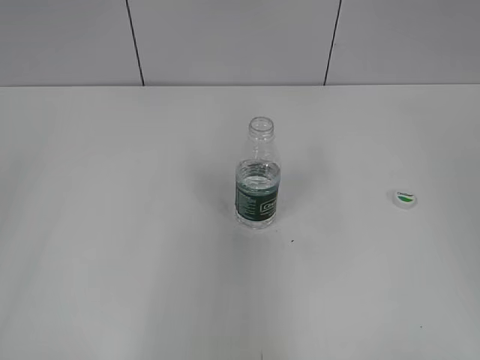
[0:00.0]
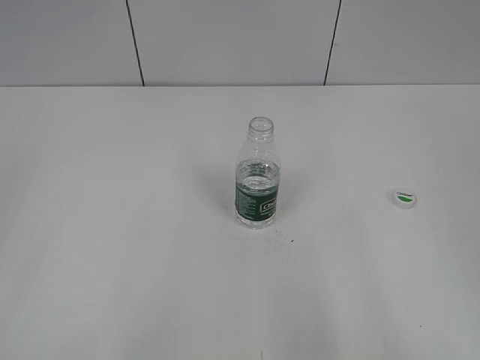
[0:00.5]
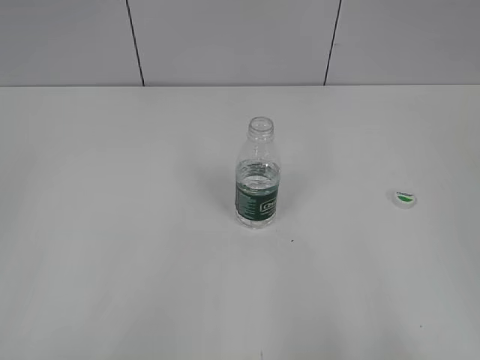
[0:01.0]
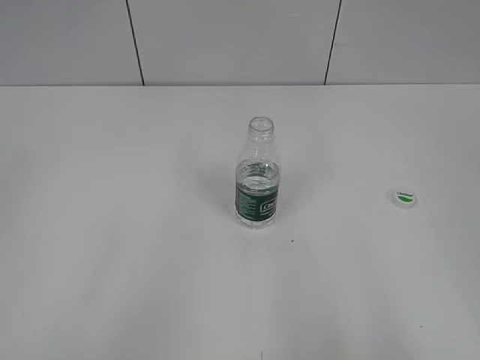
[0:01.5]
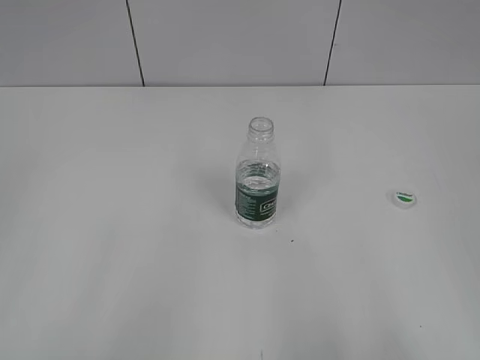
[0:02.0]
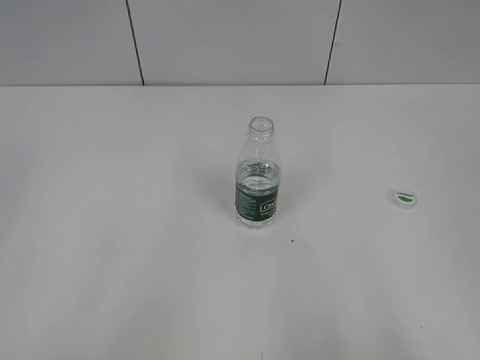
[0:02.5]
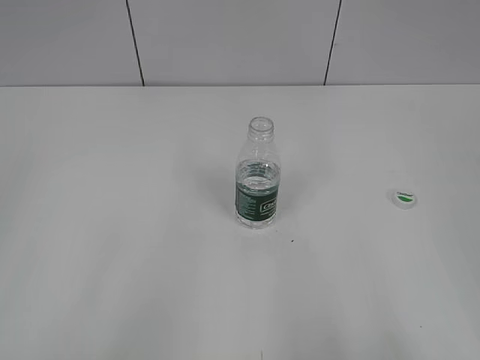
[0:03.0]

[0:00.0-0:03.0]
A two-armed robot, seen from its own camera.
0:00.0 to 0:01.5: The right gripper heads backward and downward, covering roughly 15 cm, while the left gripper changes place by approximately 5 cm.
0:01.5 to 0:03.0: Both grippers stay put.

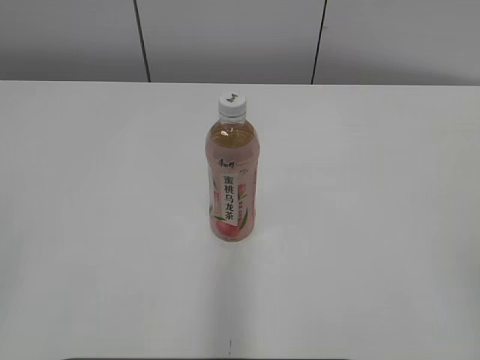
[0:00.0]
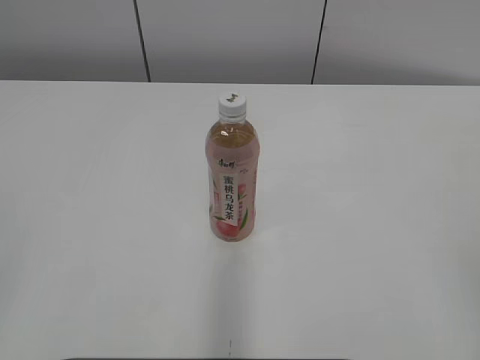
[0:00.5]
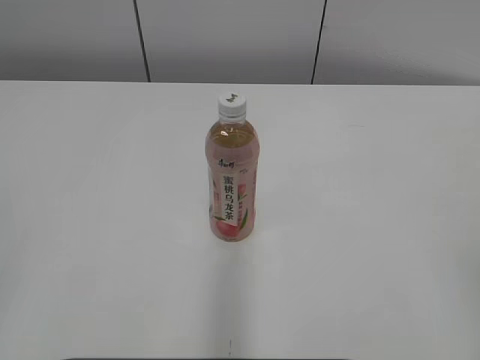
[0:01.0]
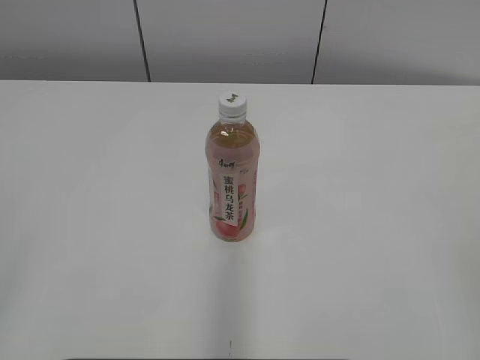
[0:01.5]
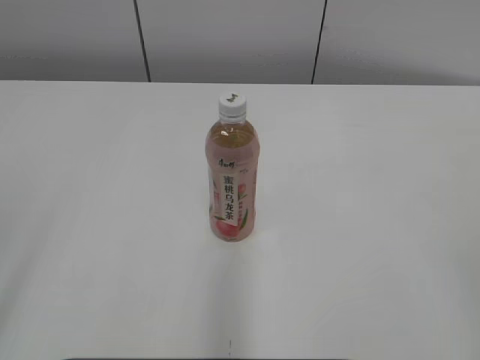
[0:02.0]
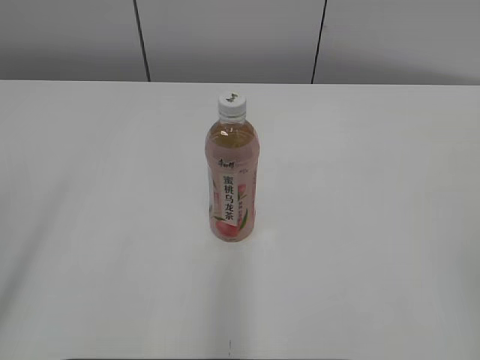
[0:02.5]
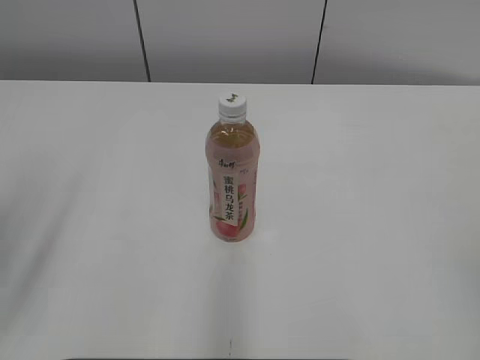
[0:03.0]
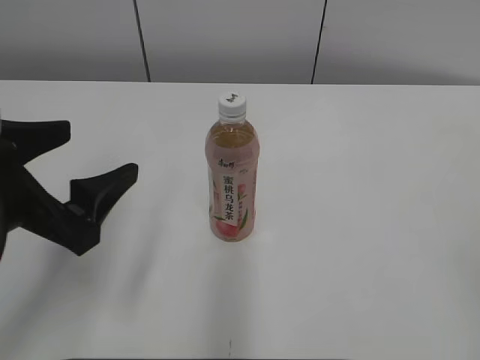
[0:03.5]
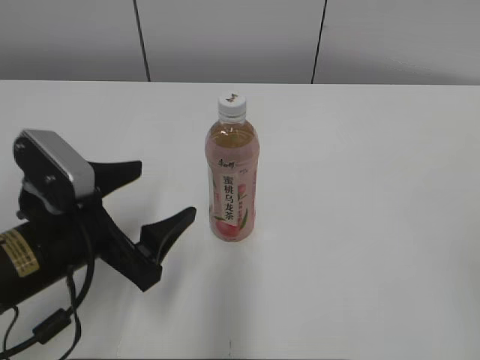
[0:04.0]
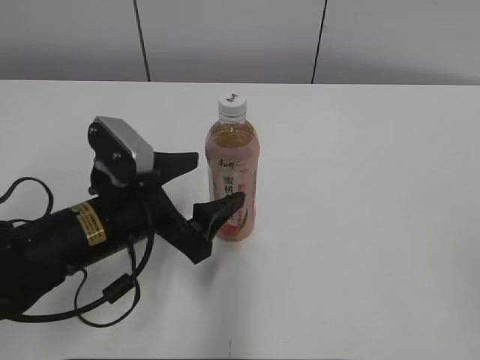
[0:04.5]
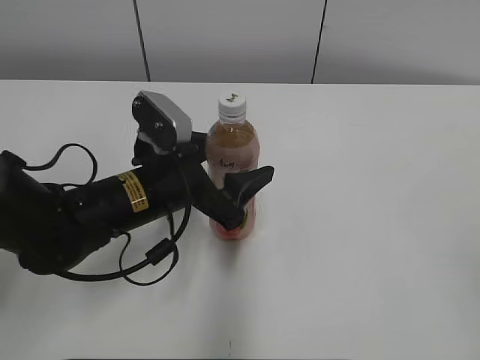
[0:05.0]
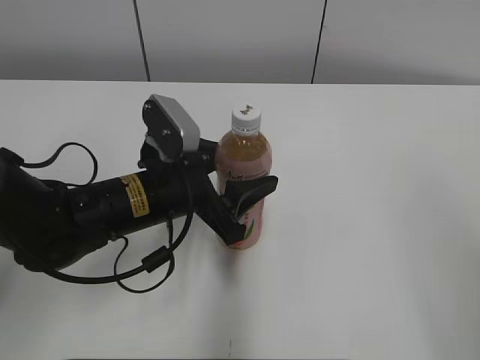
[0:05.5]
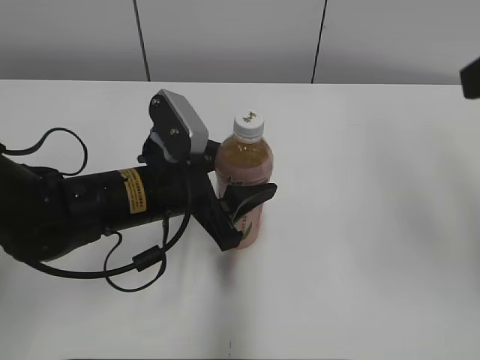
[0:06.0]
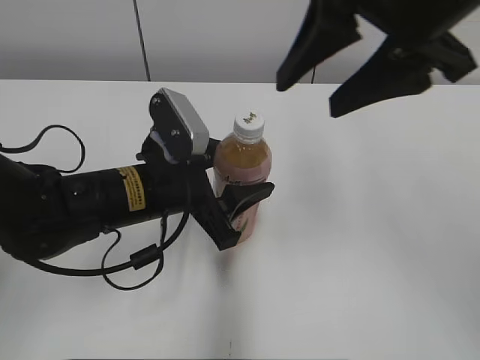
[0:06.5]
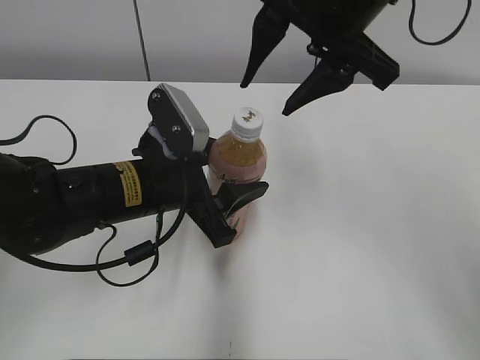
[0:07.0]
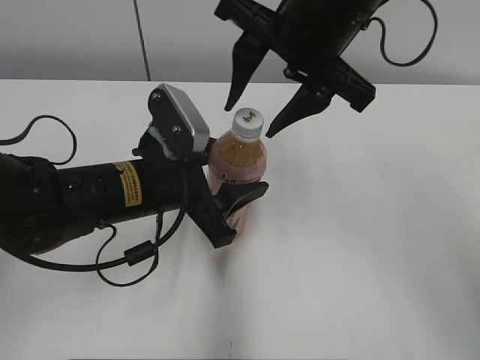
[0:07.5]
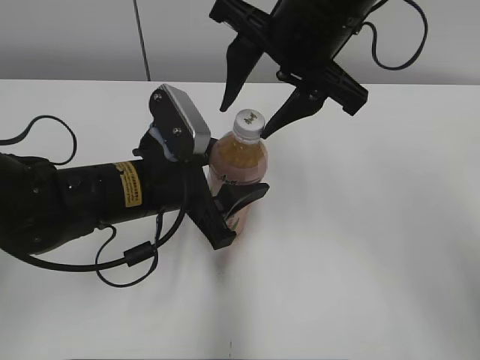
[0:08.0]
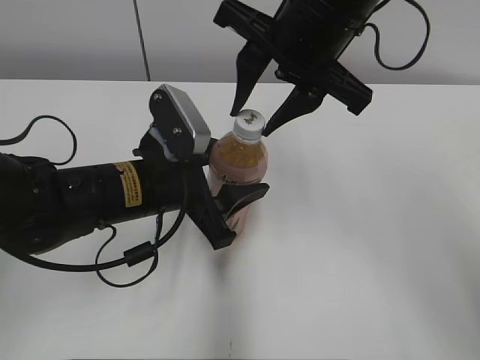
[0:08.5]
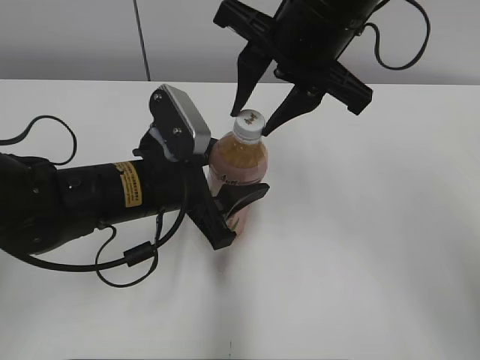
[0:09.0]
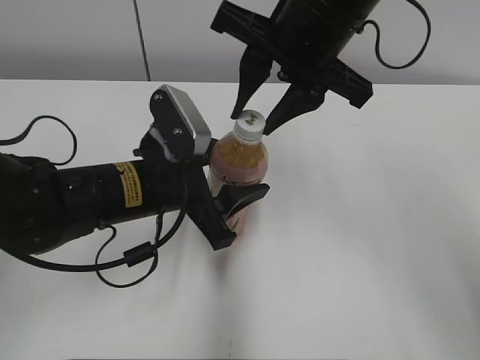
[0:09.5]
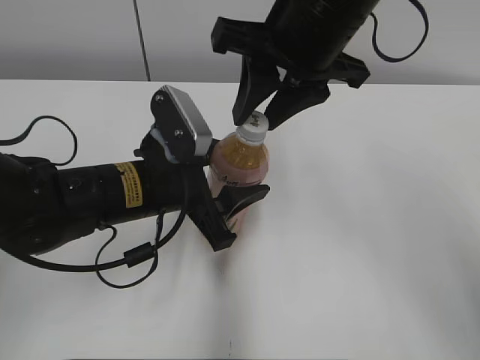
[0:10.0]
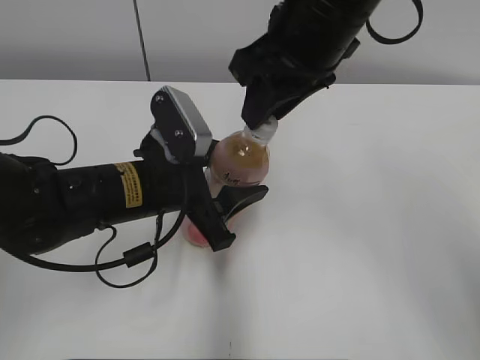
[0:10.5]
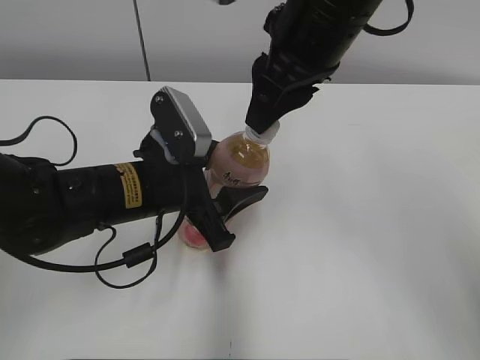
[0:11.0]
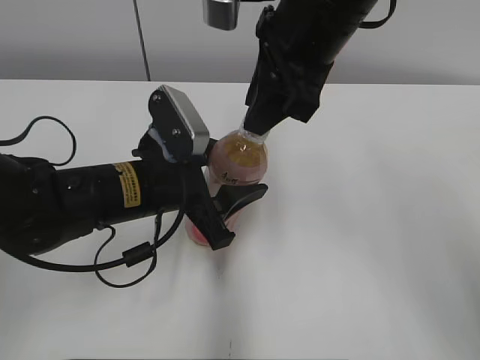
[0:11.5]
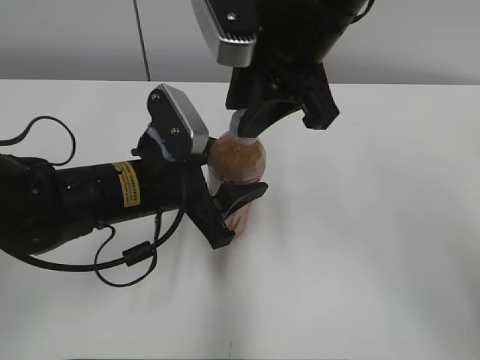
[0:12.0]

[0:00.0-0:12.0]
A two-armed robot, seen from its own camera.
Step, 0:00.0 to 0:05.0: Grab the Peach Oolong Tea with the left hand.
0:02.0 to 0:04.0: The left gripper heads forward, downward and to the right, covering approximately 30 cm.
0:04.0 to 0:06.0: The left gripper heads to the right and forward, covering approximately 10 cm, and closes up; the right gripper shifts roughly 20 cm forward and upward.
0:06.0 to 0:08.0: The right gripper goes about 20 cm to the left and forward.
0:08.0 to 0:10.0: The right gripper closes.

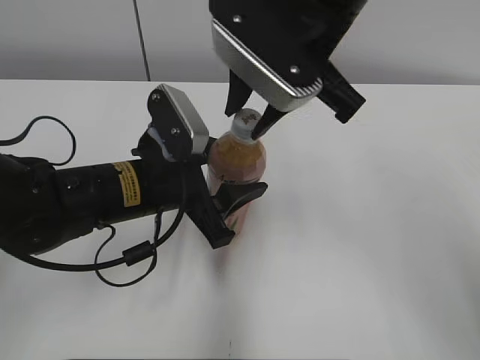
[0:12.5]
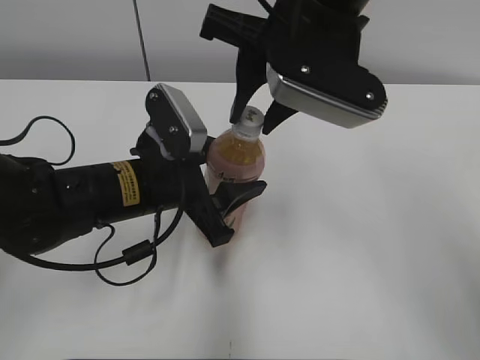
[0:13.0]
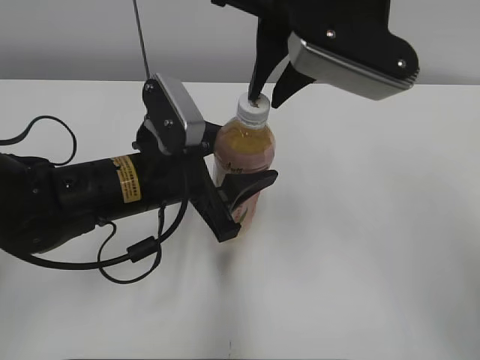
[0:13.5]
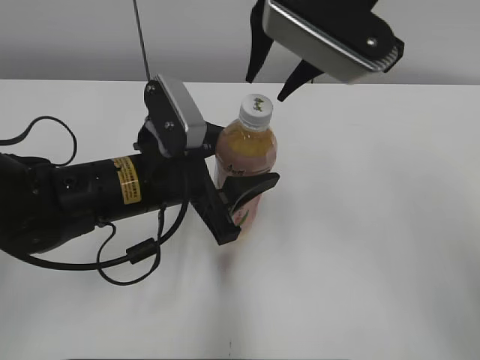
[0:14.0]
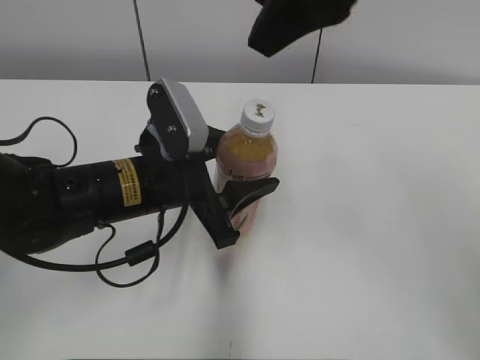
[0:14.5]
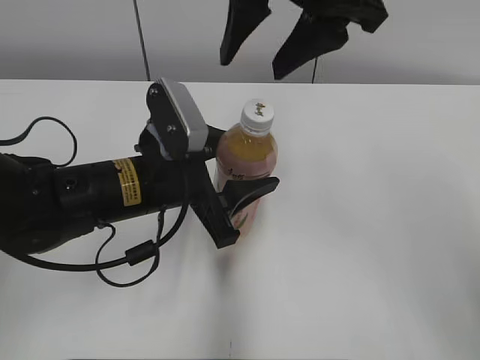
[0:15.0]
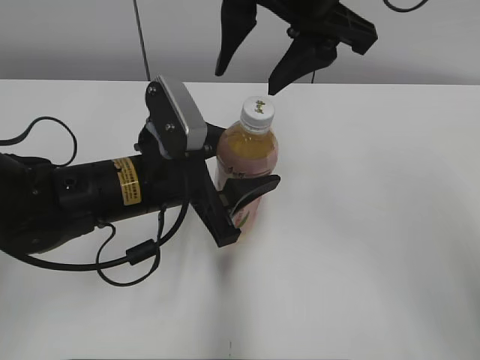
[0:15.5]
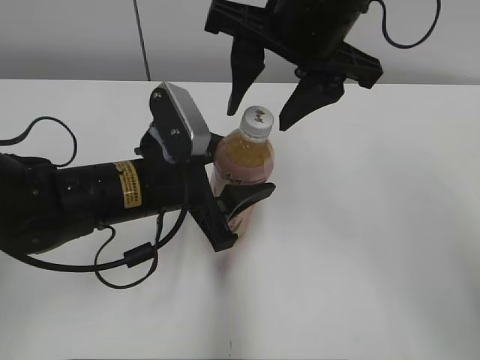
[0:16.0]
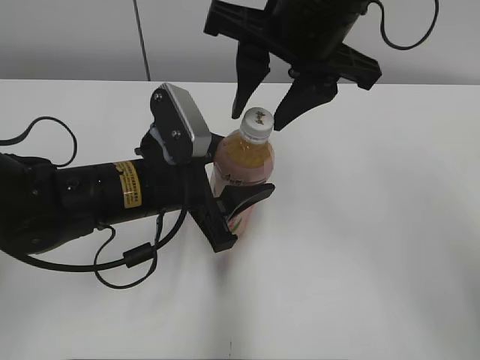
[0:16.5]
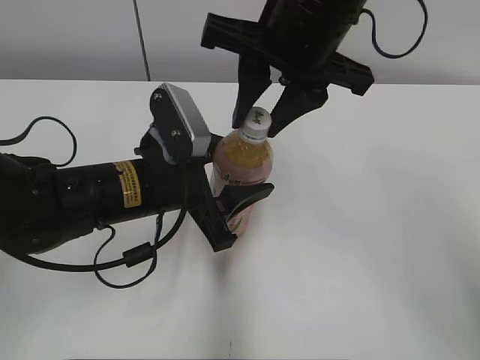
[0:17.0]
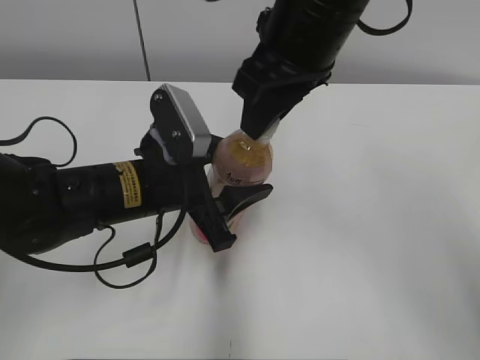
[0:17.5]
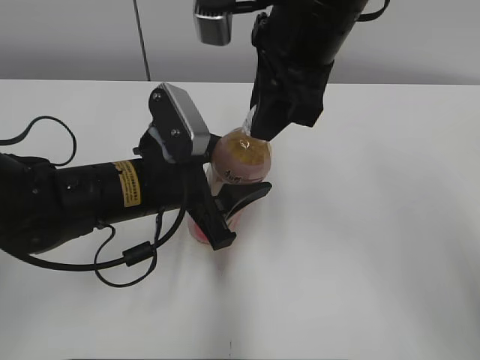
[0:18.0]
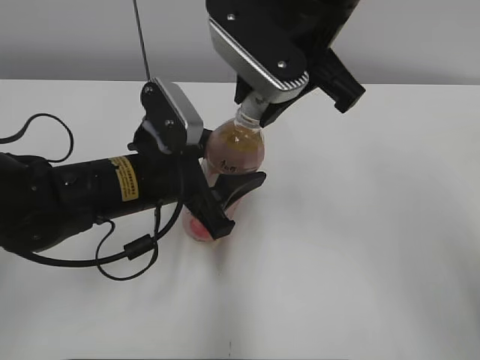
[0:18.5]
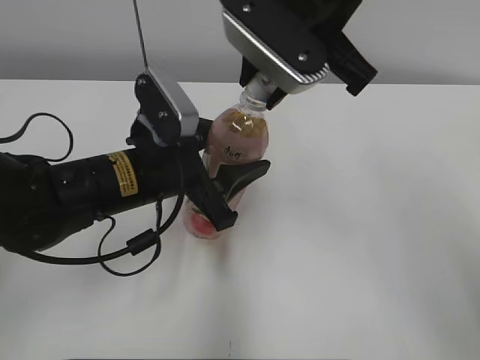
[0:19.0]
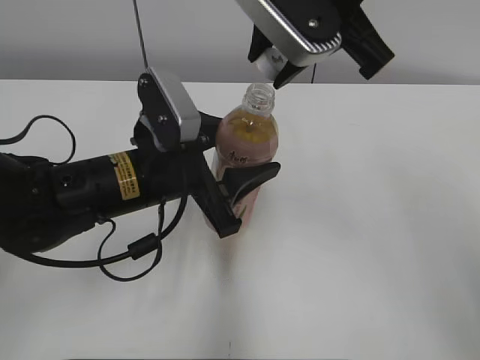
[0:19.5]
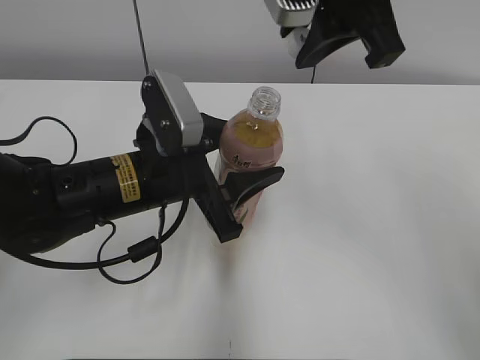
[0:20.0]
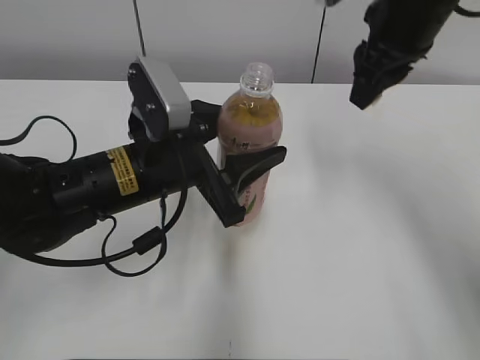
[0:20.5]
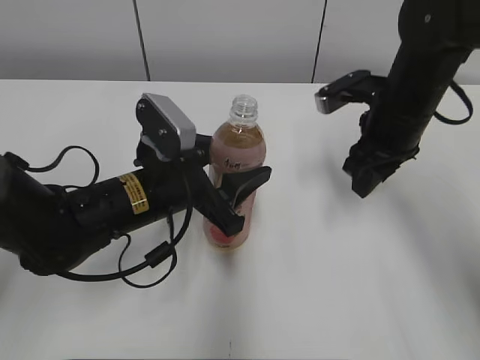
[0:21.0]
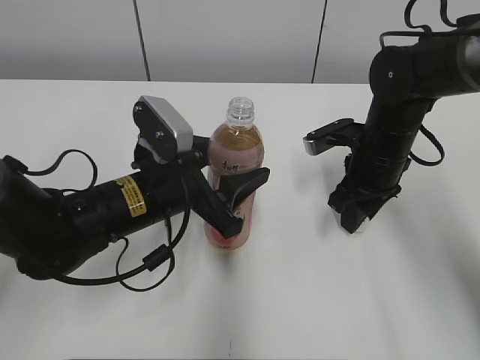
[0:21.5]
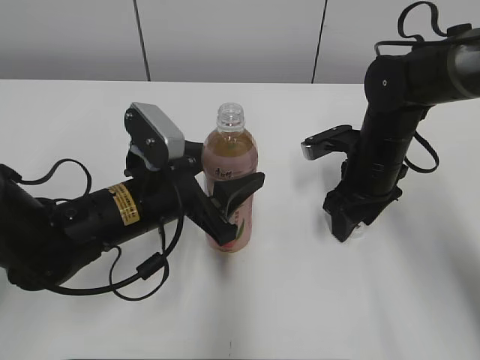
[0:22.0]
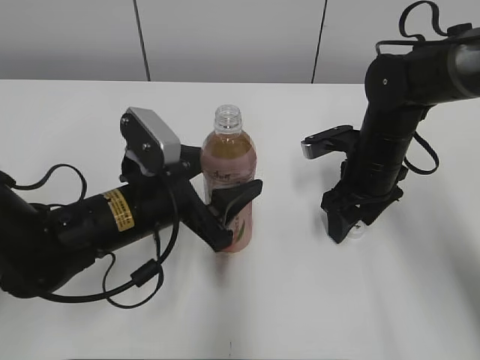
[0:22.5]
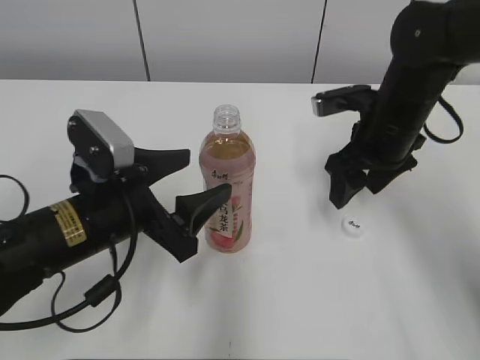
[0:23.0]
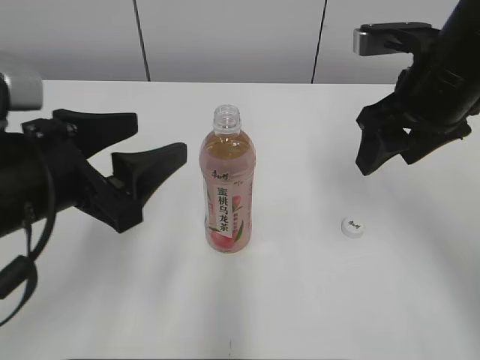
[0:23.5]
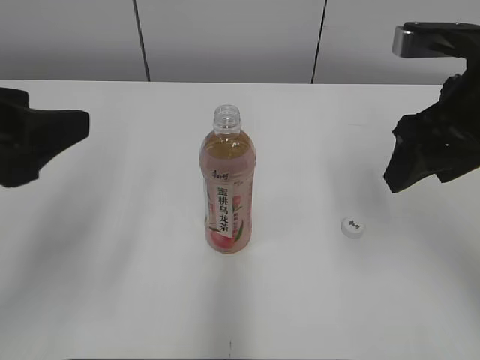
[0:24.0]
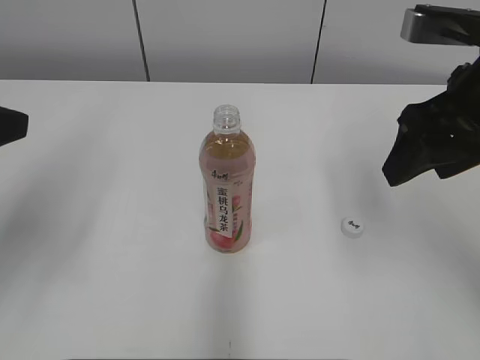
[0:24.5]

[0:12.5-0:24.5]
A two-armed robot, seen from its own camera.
Step, 0:19.5 to 0:22.0: Place the bottle cap on the right.
0:12.5 to 0:14.5: The right gripper goes approximately 10 cm upward, and opens up.
0:14.5 to 0:16.5: The right gripper heads downward, covering some 10 cm.
0:18.5 to 0:20.5: The right gripper heads to the right and forward, covering some 10 cm.
0:20.5 to 0:22.5: The left gripper is displaced downward by approximately 5 cm, while the right gripper heads downward, covering roughly 20 cm, and opens up.
0:22.5 to 0:24.5: The right gripper shifts some 20 cm upward and backward; the left gripper shifts approximately 25 cm upward, to the left and backward.
